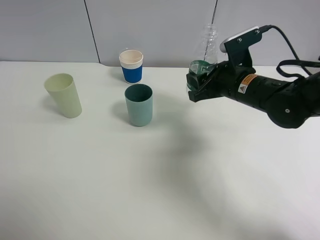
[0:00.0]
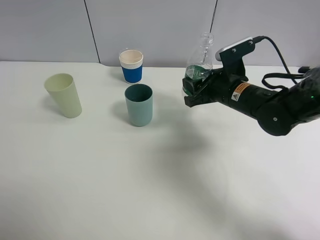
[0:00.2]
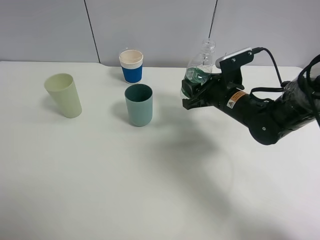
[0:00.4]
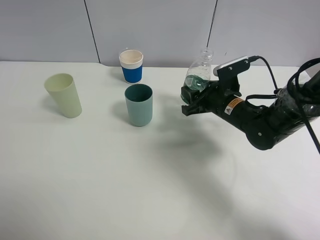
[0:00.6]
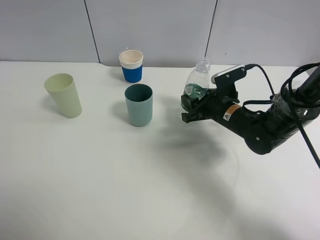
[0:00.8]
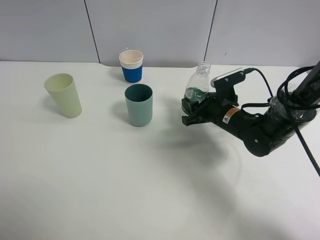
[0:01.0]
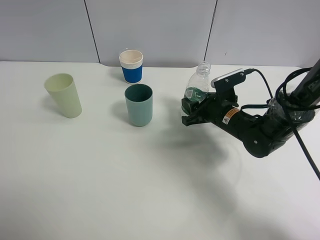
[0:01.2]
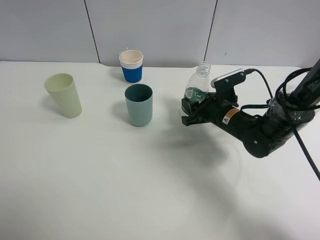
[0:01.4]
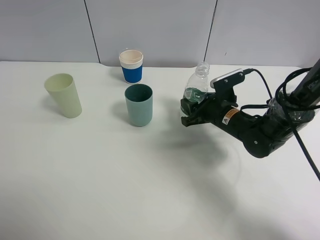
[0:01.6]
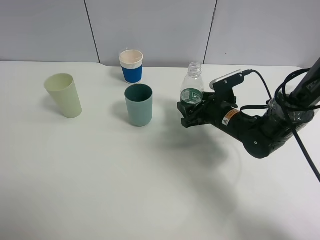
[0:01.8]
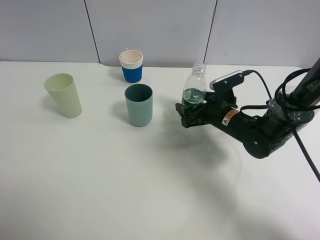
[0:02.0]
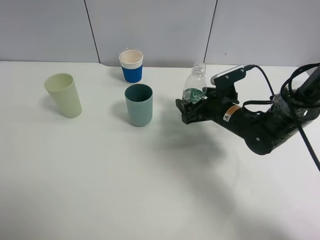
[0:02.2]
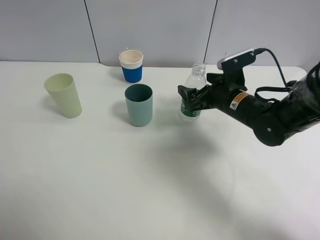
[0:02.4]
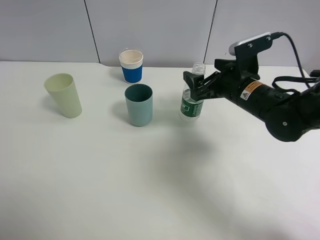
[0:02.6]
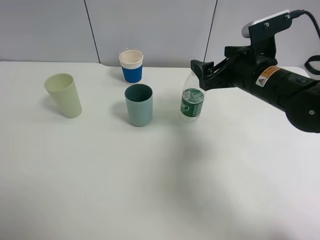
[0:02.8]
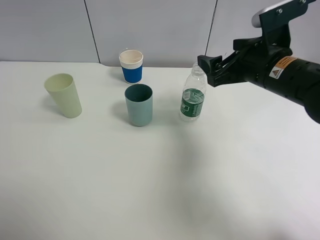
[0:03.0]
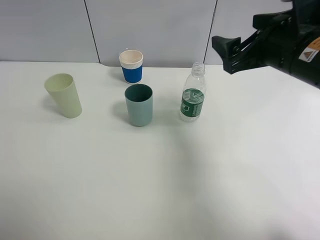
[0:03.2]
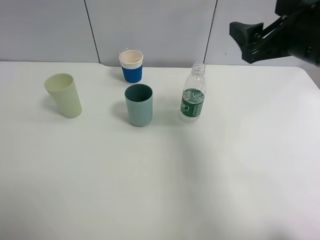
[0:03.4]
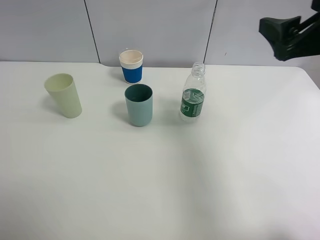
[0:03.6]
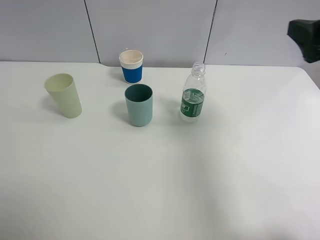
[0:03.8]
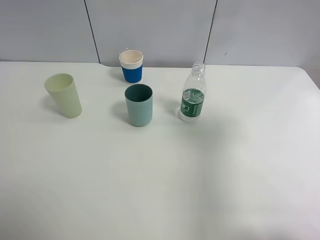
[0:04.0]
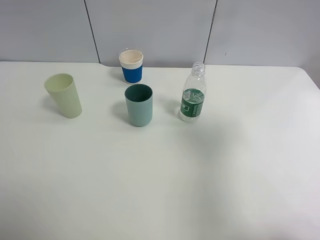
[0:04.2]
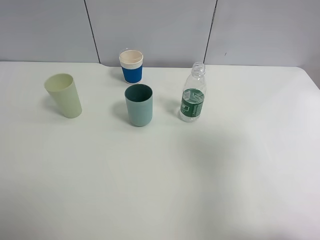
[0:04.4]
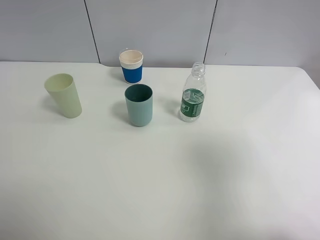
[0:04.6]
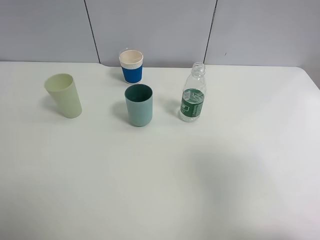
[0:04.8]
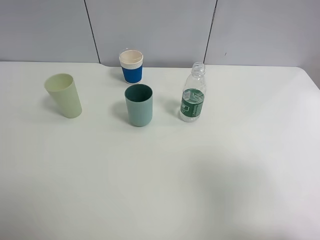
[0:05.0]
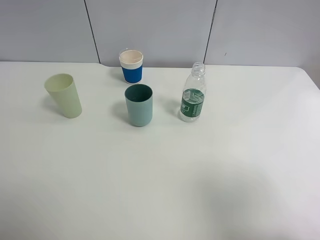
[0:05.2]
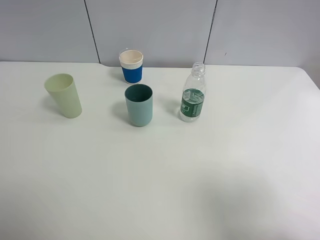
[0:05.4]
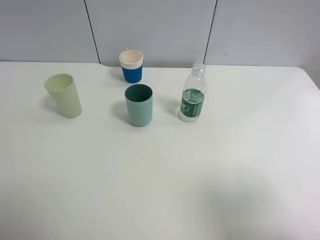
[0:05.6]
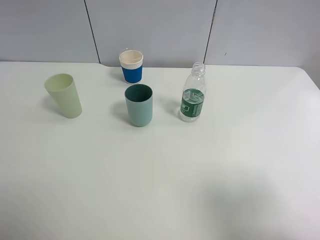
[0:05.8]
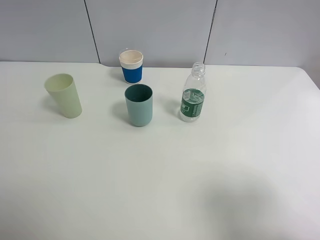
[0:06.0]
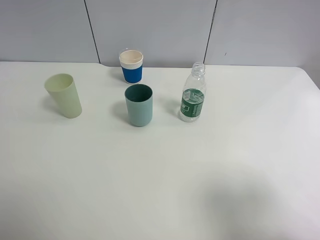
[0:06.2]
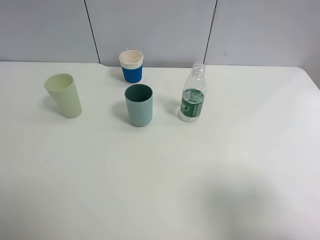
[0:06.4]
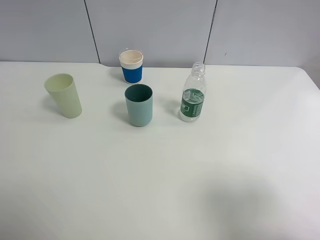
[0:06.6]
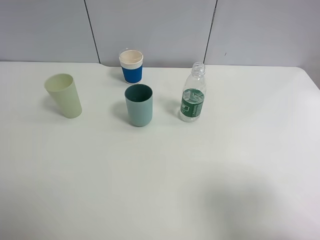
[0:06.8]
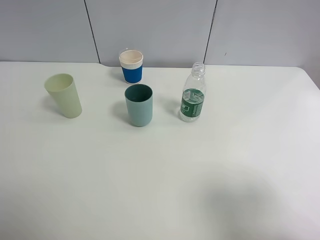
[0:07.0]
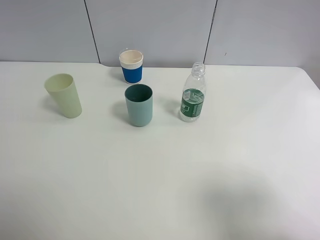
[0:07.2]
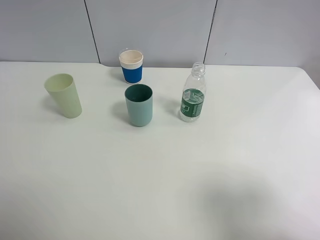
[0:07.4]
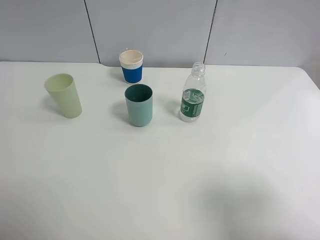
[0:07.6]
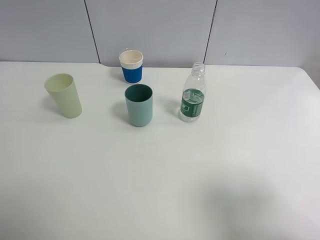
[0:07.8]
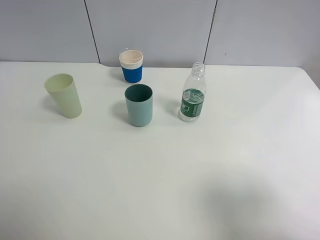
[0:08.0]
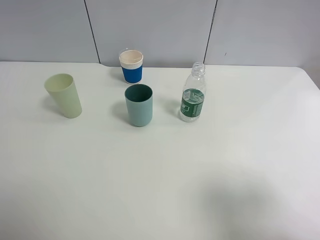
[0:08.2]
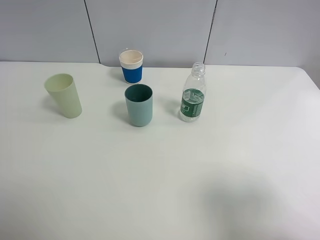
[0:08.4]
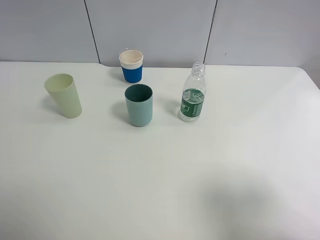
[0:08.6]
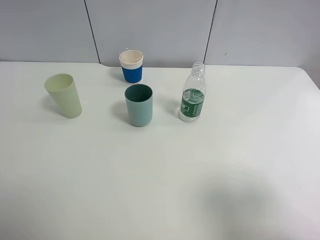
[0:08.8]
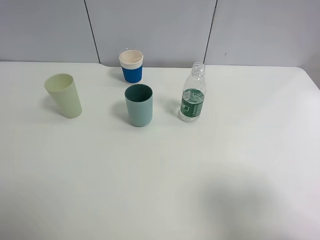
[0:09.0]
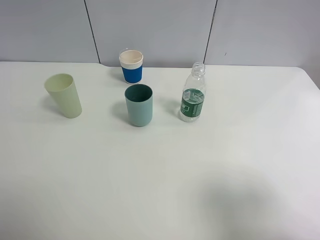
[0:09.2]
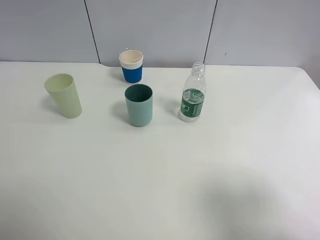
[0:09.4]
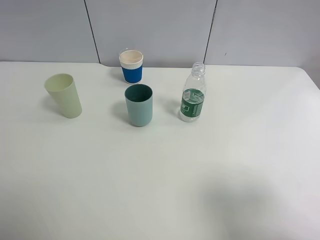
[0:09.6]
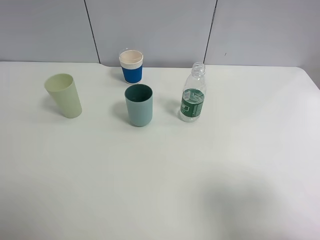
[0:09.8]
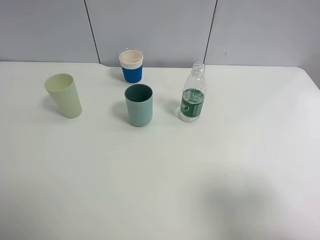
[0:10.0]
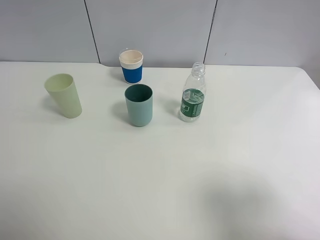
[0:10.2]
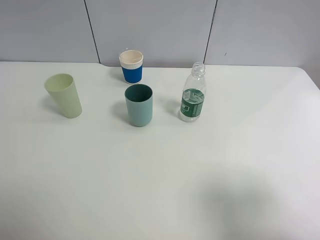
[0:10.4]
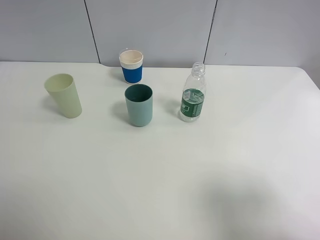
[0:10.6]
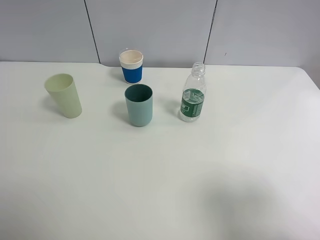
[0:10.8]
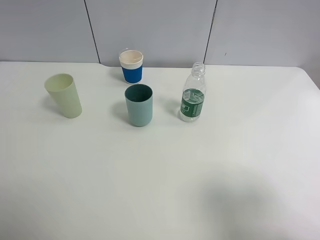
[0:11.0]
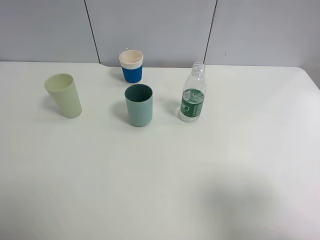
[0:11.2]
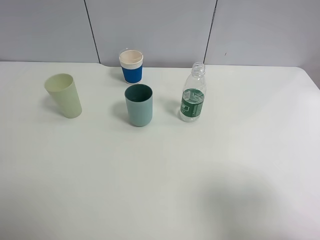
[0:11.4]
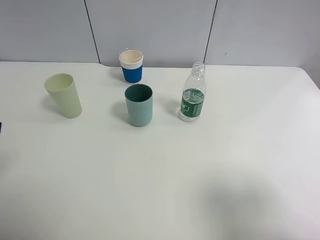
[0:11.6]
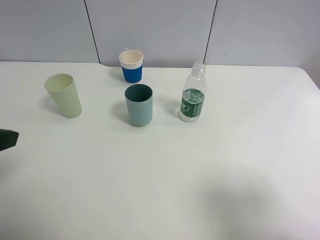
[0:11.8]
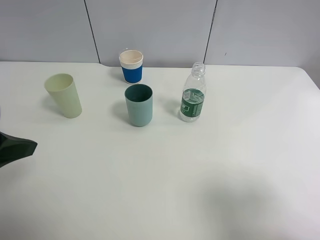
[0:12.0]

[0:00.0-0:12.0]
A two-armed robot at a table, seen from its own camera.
Task of the whole recording: use a clamp to hold the bottle of the drink, pour the beverage into a random cup, then clamp the cup containing the drink and pour the drink into another random cup.
Step, 0:00.0 to 0:02.2: Place the water bottle on the table with right gripper.
0:00.0 to 0:01.6: The right gripper shifts roughly 10 cm downward.
0:01.6 to 0:03.0: The right gripper heads upward, covering some 15 cm, and opens its fingers.
0:03.0 to 0:04.4: The right gripper is displaced backward, to the right and upward by about 25 cm.
0:04.4 to 0:06.0: The right gripper travels backward and downward by approximately 10 cm.
0:06.0 to 0:10.4: Both grippers stay put.
0:10.4 to 0:12.0: The left gripper heads forward and to the right, covering roughly 15 cm.

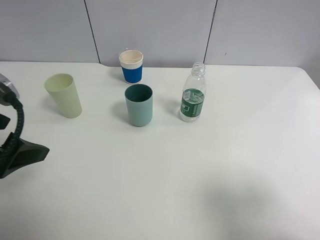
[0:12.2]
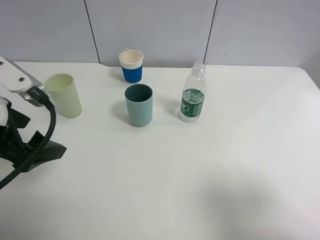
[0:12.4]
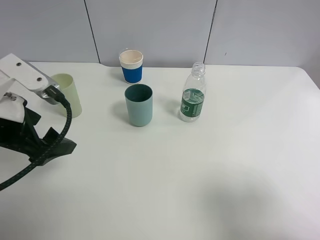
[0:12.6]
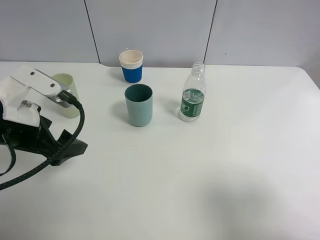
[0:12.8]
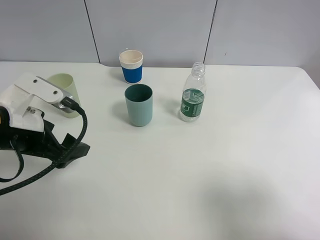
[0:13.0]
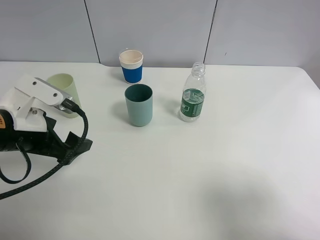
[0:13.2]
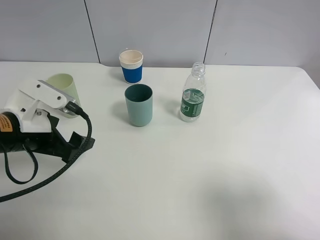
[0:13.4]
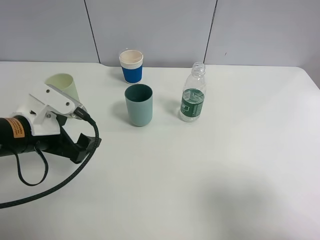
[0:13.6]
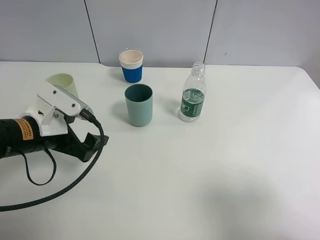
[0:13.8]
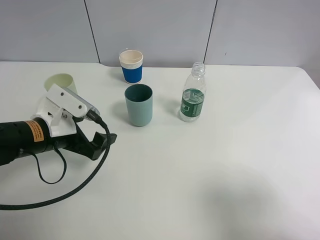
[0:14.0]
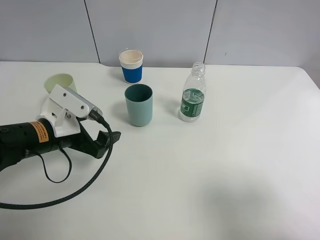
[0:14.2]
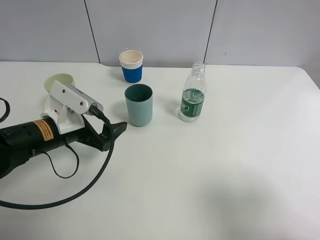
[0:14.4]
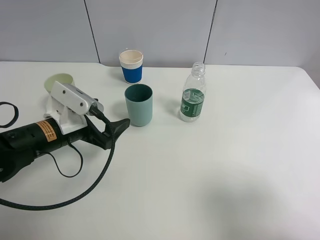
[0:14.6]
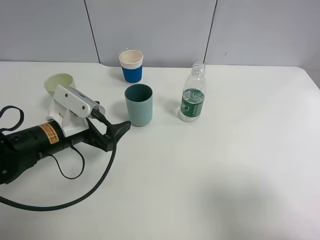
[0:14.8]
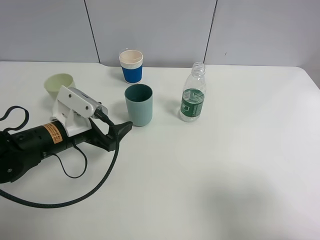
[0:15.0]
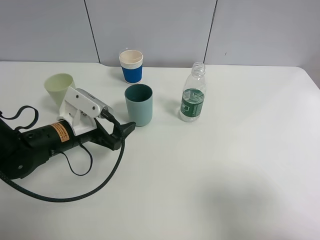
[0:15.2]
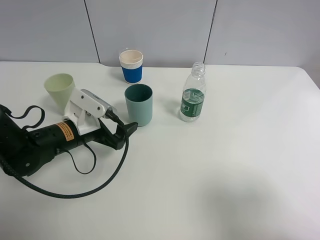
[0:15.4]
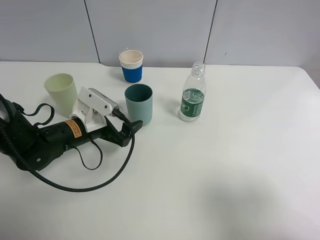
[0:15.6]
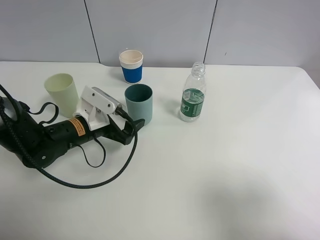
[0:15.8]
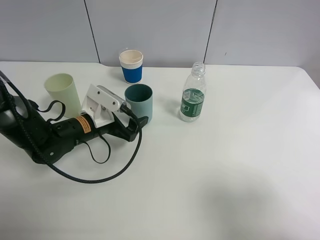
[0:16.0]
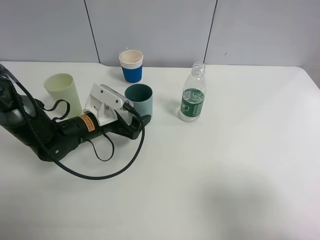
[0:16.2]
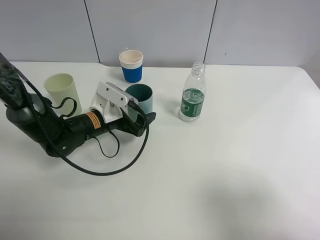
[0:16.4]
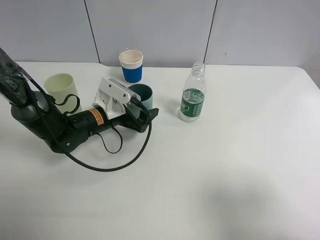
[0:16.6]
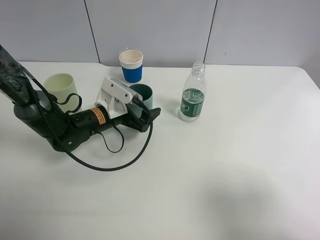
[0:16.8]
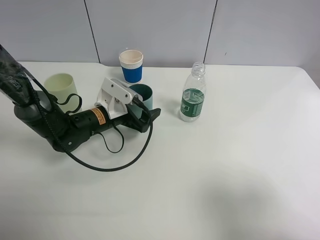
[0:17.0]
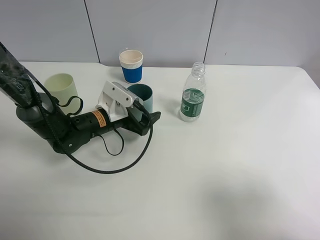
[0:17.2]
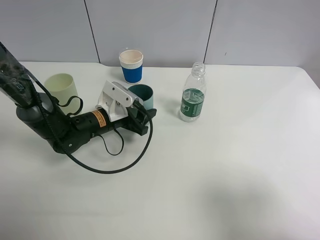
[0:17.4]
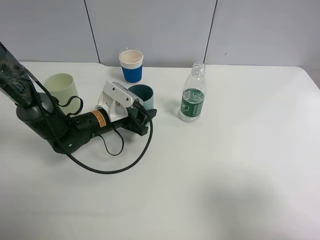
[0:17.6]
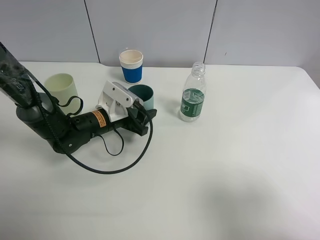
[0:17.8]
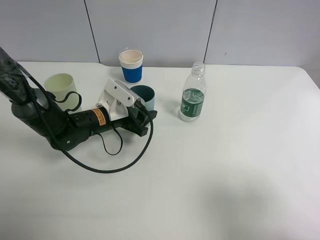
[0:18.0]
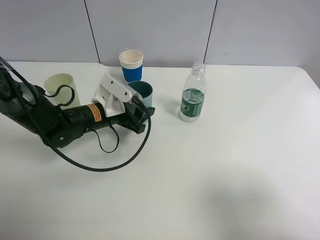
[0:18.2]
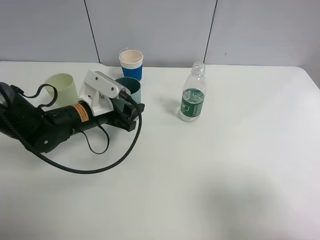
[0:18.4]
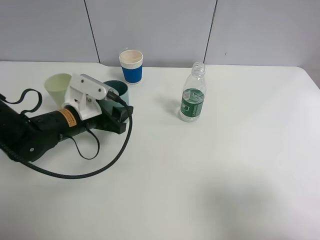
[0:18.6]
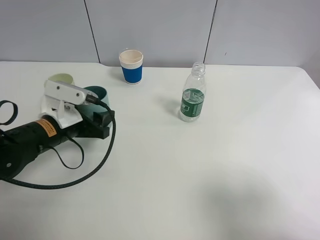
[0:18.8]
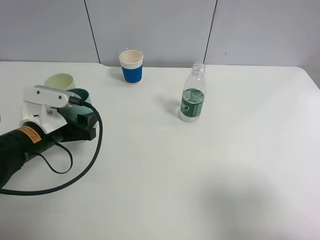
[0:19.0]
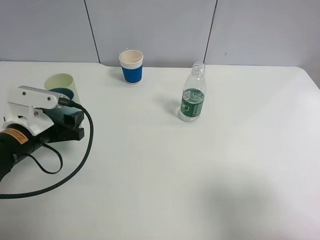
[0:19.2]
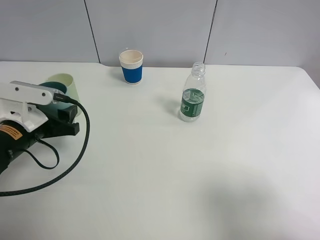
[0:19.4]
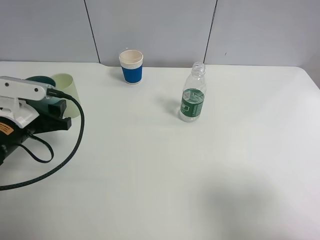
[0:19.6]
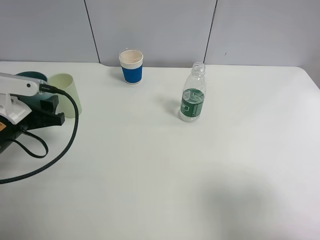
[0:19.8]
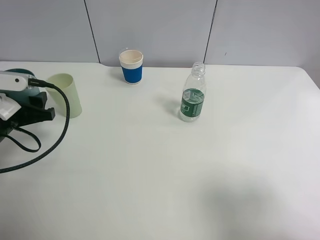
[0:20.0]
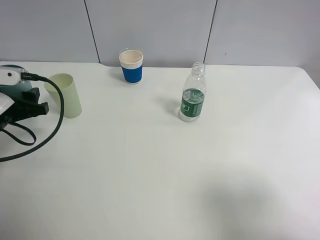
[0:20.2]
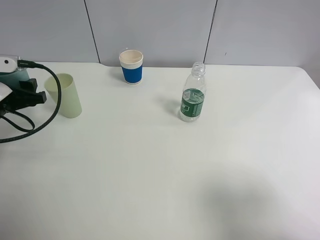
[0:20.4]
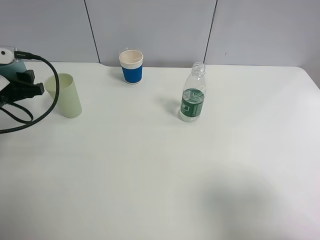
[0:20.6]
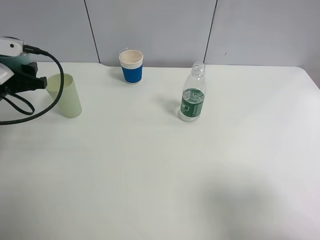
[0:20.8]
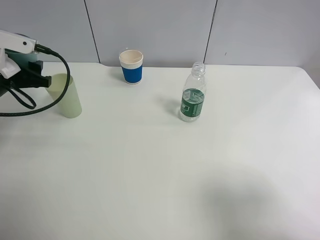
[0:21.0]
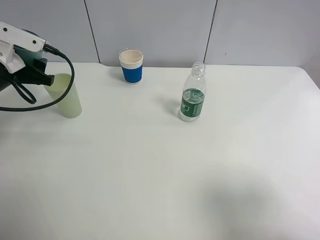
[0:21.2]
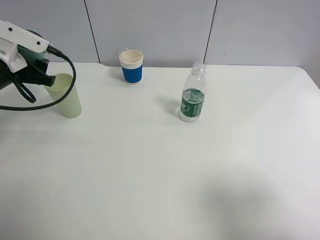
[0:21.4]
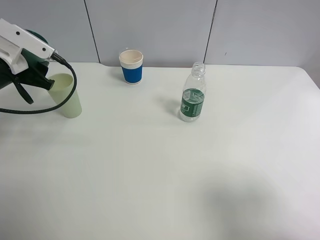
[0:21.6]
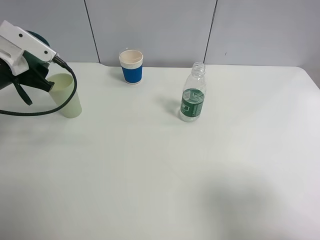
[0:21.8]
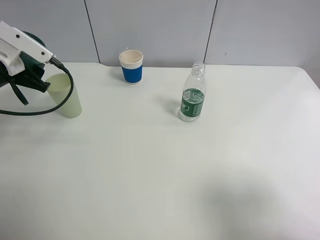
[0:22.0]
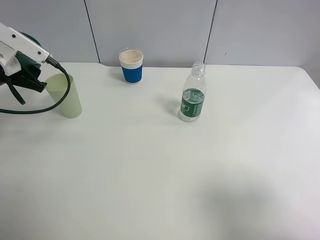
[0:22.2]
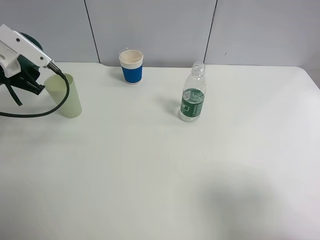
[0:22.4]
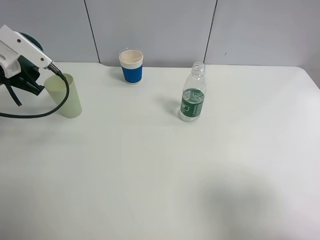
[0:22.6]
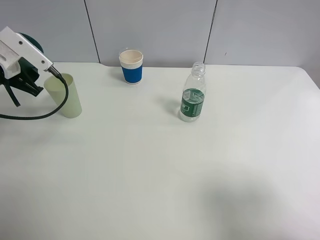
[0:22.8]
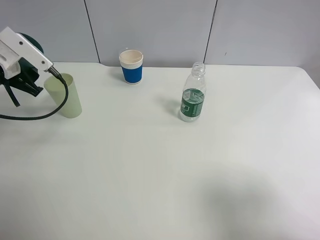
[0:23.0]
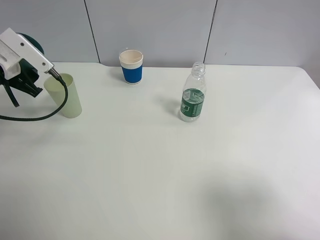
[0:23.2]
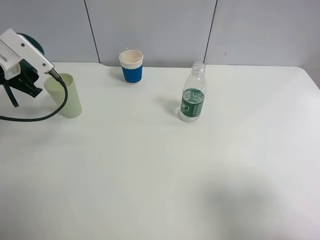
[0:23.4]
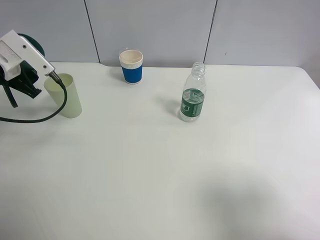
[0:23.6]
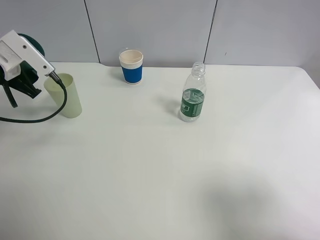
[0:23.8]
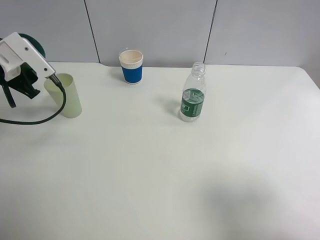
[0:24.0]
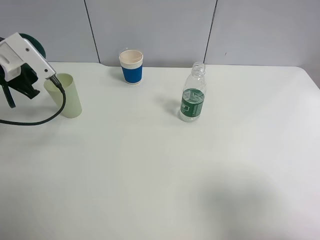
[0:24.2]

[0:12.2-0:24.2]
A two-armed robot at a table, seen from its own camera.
Task of the whole recording: use a clamp to hold the bottle of the drink, pour the beverage into a random cup, then clamp the cup containing the drink and pour the drink into another random cup.
Step, 0:12.2 to 0:18.2: Pick up the blue plastic cup bottle with left gripper.
0:12.2 to 0:13.8: The left gripper travels downward and forward by roughly 15 cm.
0:13.8 to 0:15.2: The left gripper shifts by approximately 5 cm.
0:15.2 to 0:16.6: The left gripper moves forward, approximately 5 cm.
0:16.6 to 0:18.2: The left gripper closes.
0:18.2 to 0:19.8: The left gripper shifts approximately 15 cm to the left, backward and upward.
0:19.8 to 0:21.2: The left gripper moves forward, some 10 cm.
0:22.6 to 0:24.2: The grippers stay close to where they were, moving slightly.
